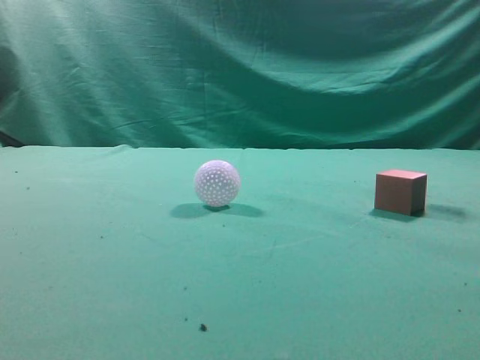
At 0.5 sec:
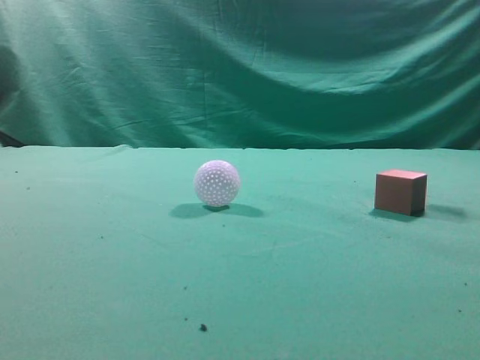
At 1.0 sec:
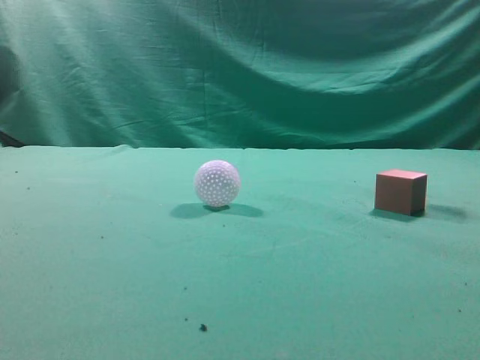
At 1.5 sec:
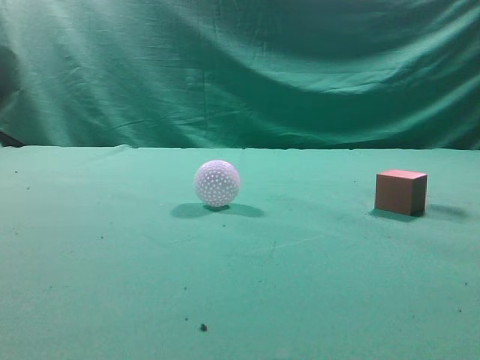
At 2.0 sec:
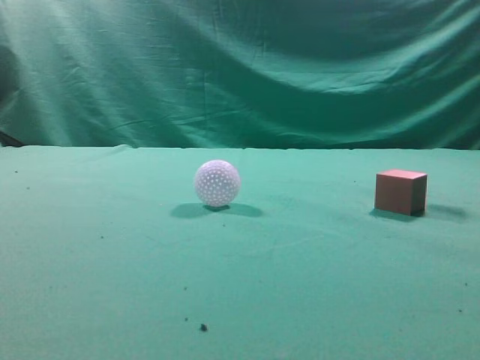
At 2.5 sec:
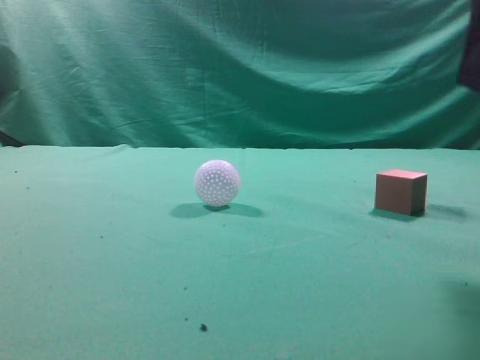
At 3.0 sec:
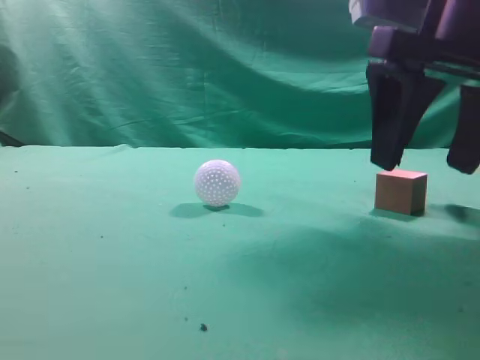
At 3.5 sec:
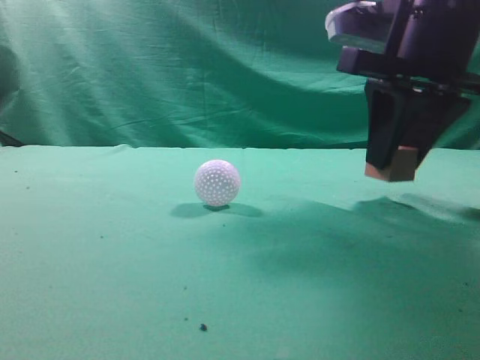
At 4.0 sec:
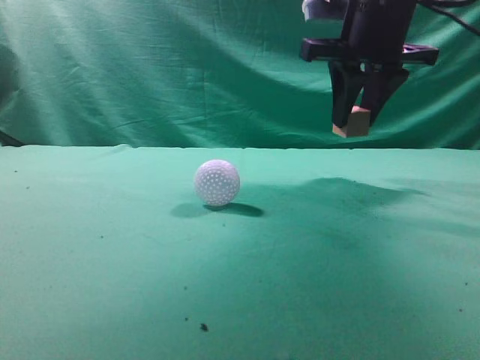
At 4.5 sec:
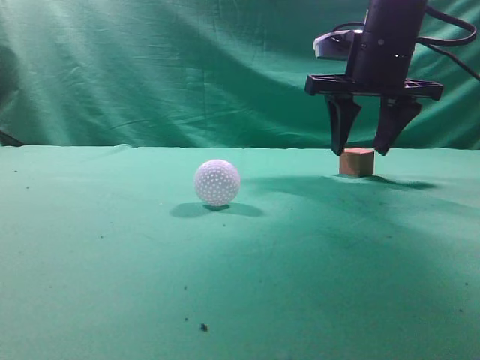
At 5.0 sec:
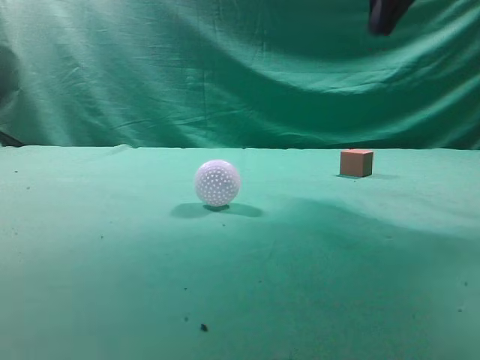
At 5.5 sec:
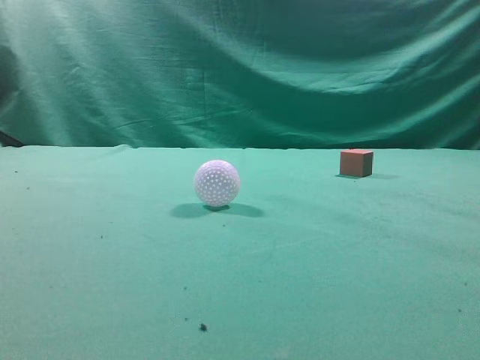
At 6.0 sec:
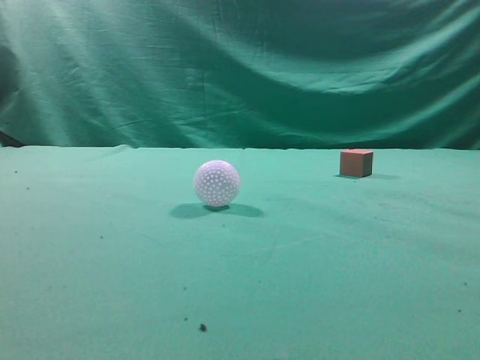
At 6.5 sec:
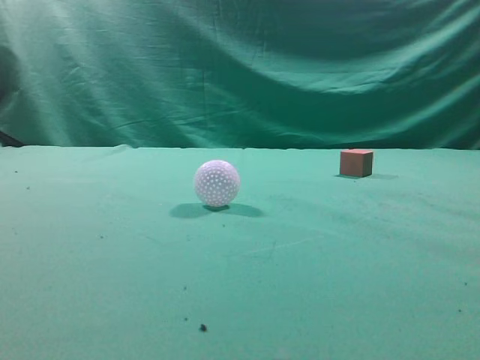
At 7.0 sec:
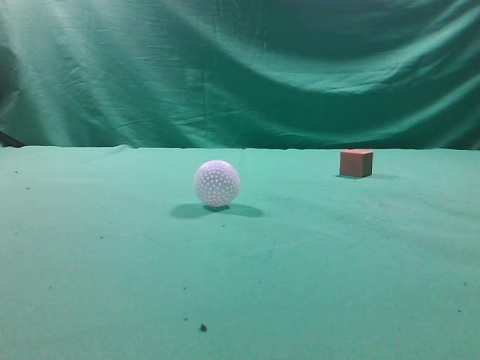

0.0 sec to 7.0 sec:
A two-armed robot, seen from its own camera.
Task of the whole recording: pick up the cube block and place it in another position on the table.
Step, 0.0 sec to 3.0 sec: Pick up the small cube.
Step, 4.0 sec to 4.5 sec: Place the small cube on the ahead of the table.
2.0 sec to 3.5 sec: The right gripper travels forward and to the left by about 20 cm, and opens, then closes again.
3.5 sec to 5.0 sec: The right gripper shifts approximately 15 cm upward, and opens and closes again.
5.0 sec to 7.0 sec: The right gripper is displaced backward, downward and to the right by some 35 cm.

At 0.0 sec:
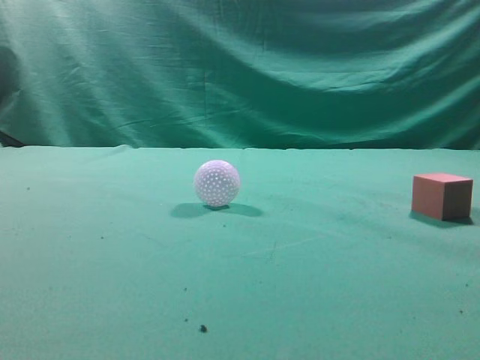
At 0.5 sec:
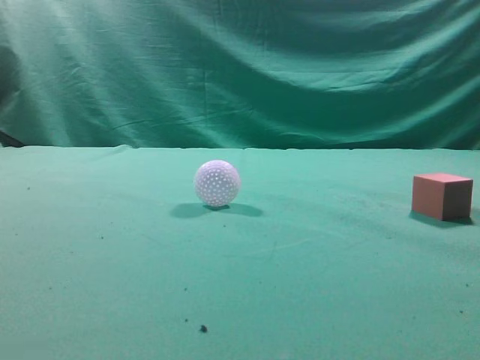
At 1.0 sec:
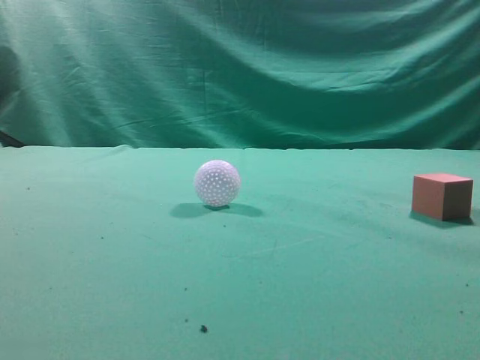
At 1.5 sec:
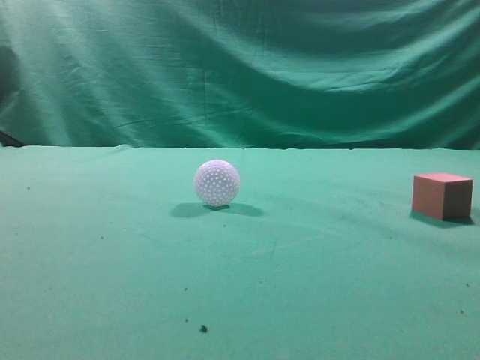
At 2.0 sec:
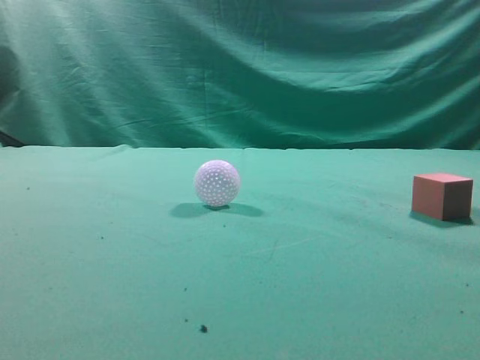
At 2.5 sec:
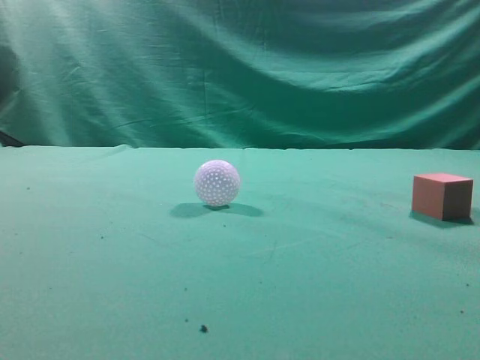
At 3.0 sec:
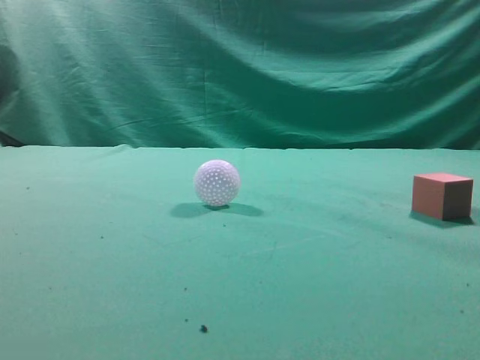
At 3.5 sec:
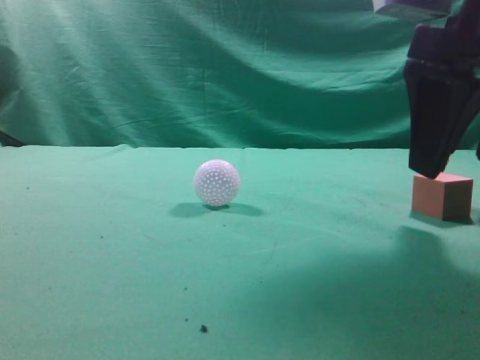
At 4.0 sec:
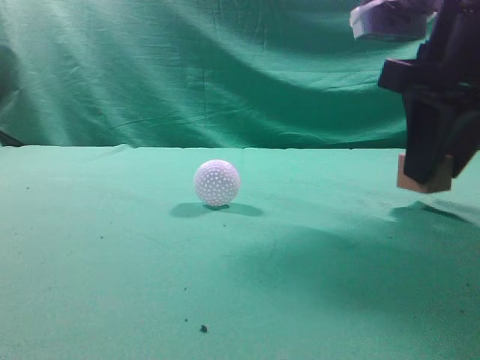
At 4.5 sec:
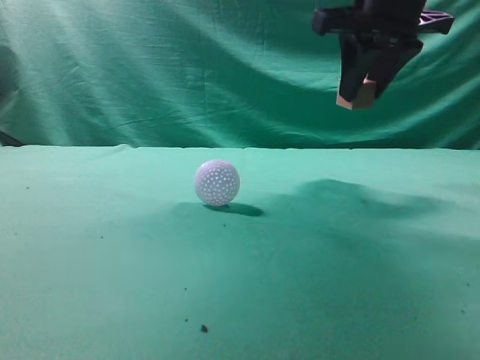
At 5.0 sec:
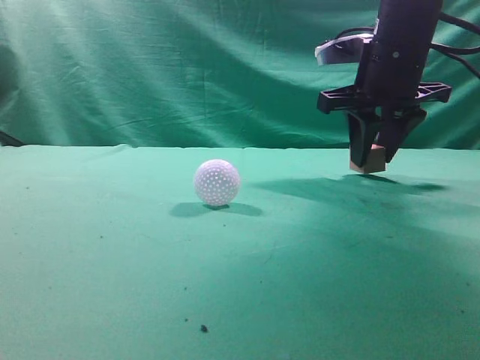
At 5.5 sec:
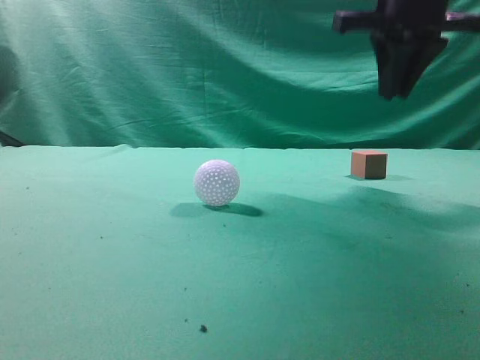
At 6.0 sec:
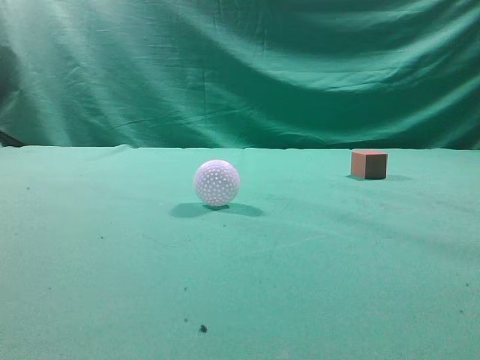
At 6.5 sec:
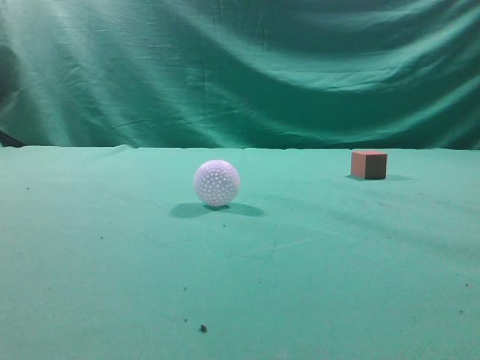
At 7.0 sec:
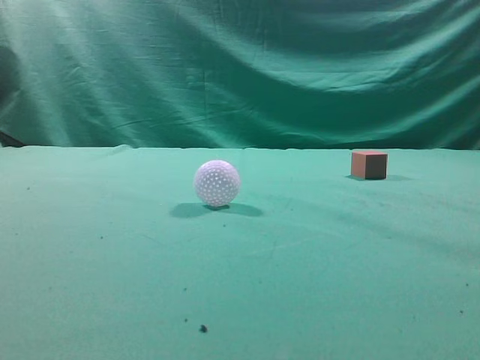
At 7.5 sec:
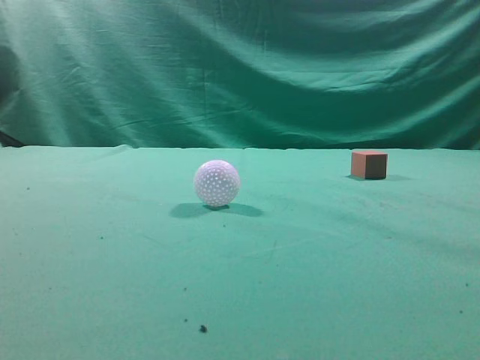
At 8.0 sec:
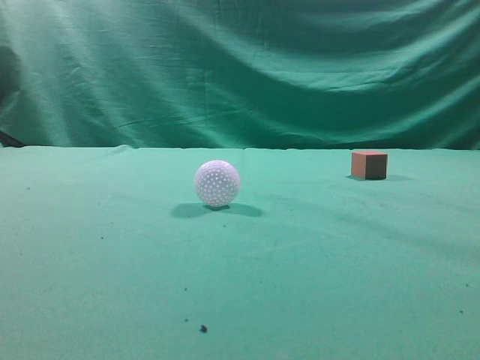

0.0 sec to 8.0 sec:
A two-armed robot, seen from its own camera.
Task of the whole recording: pick up the cube block and place it in another position on the table.
Step, 0.0 sec to 3.5 sec: Pick up the small cube.
Step, 4.5 sec to 5.0 sec: Place the small cube on the ahead of the table.
2.0 sec to 4.0 sec: The right gripper moves forward and to the left, some 25 cm, and opens its fingers.
4.0 sec to 6.0 sec: The right gripper moves up and down over about 20 cm, changing direction 2 times, and closes.
